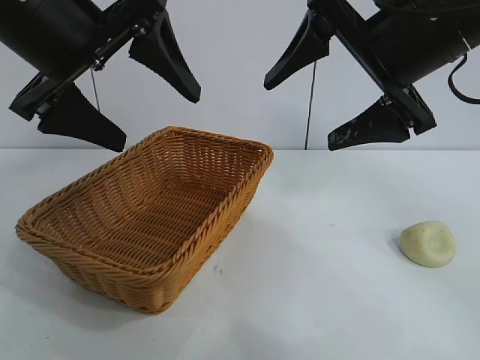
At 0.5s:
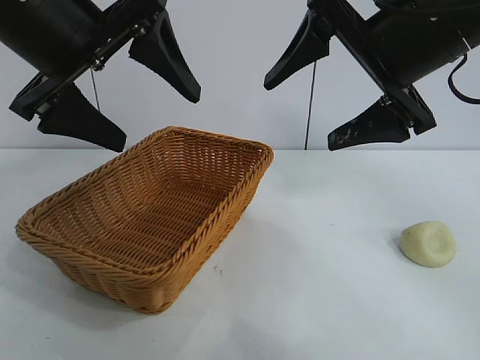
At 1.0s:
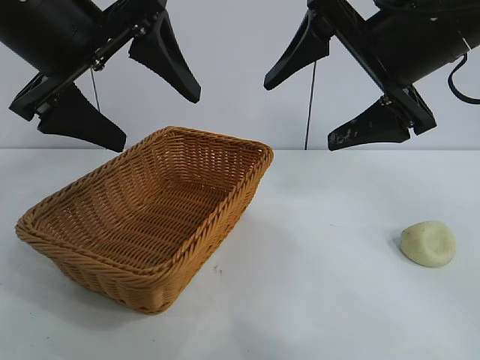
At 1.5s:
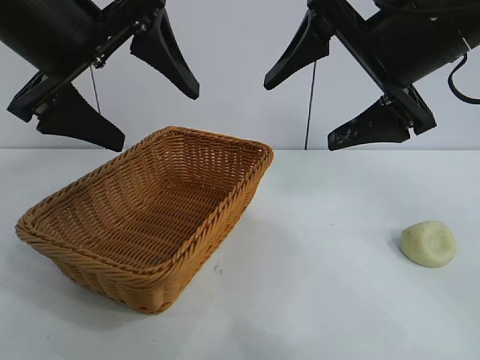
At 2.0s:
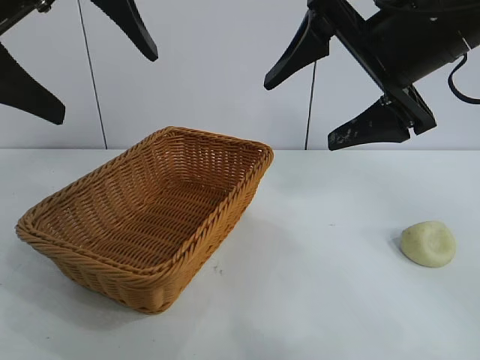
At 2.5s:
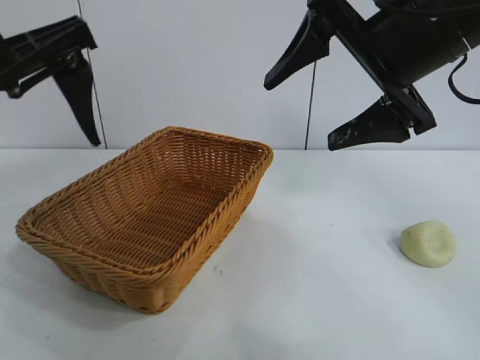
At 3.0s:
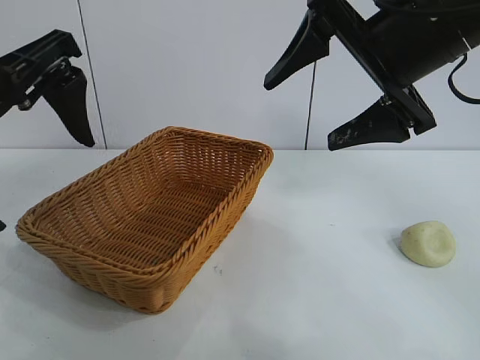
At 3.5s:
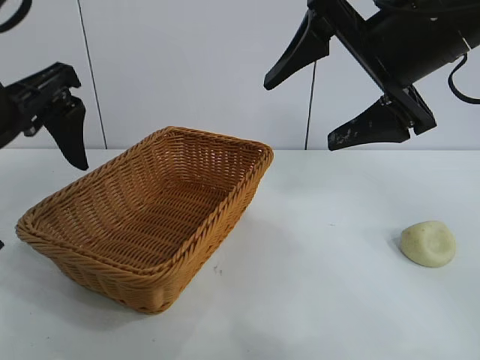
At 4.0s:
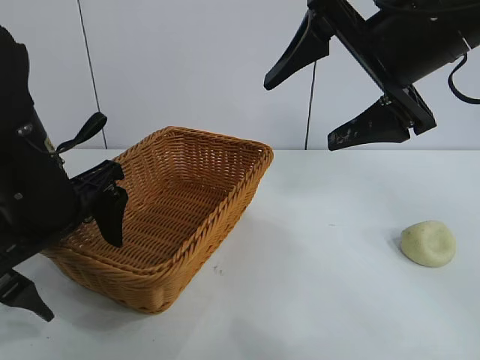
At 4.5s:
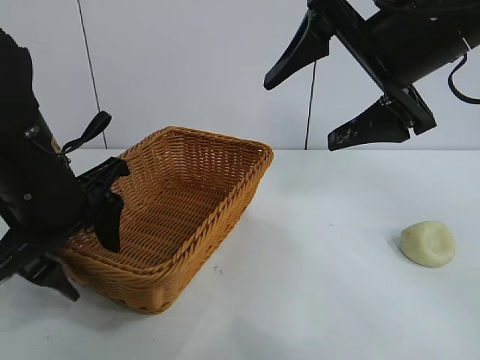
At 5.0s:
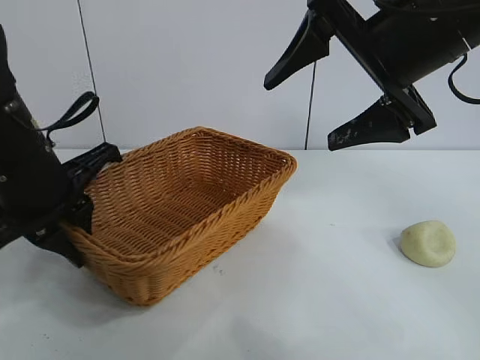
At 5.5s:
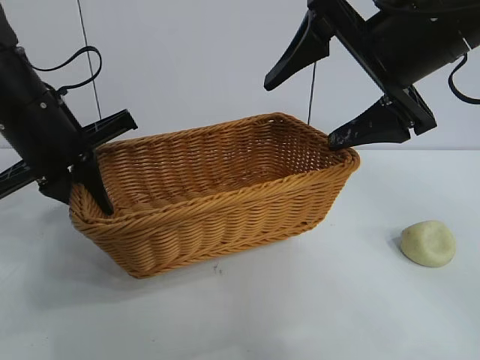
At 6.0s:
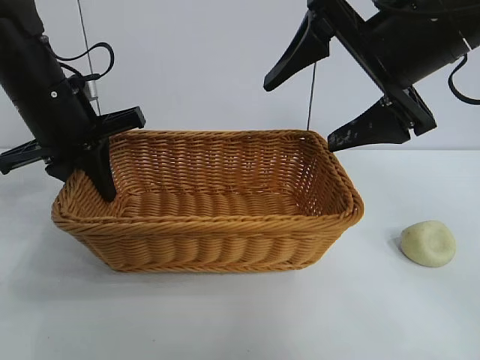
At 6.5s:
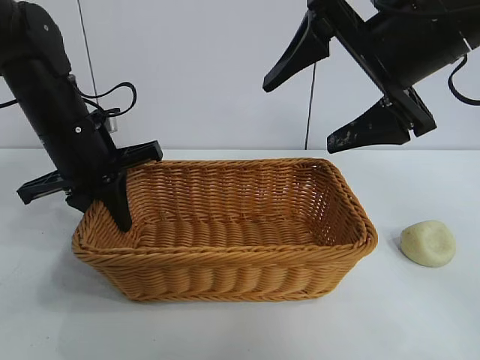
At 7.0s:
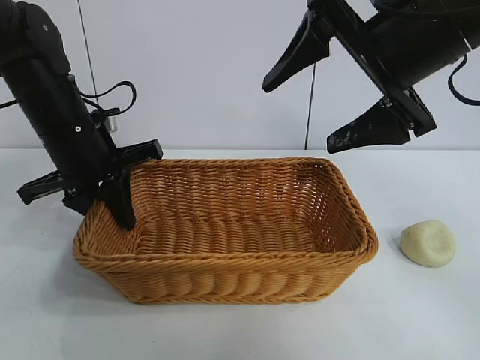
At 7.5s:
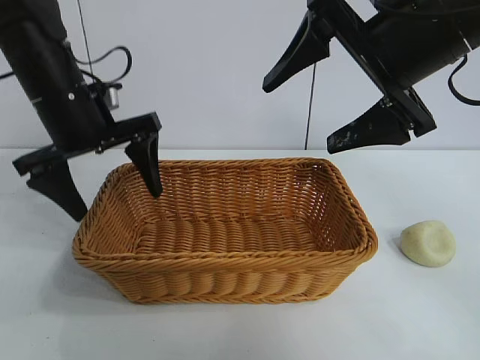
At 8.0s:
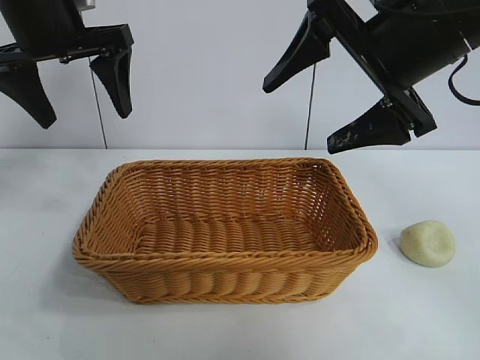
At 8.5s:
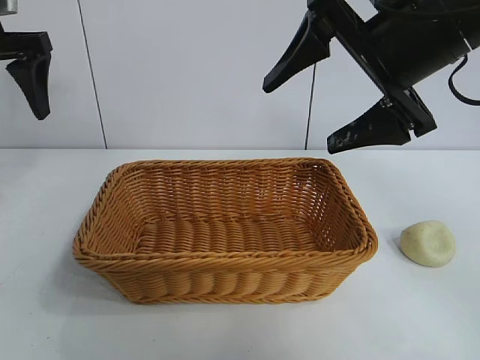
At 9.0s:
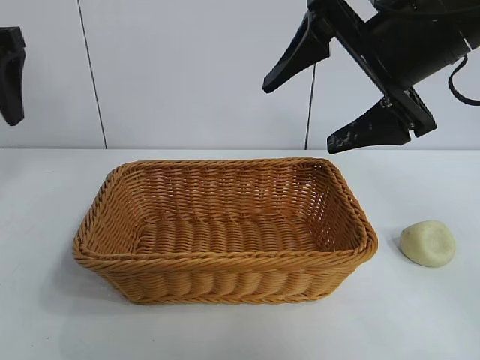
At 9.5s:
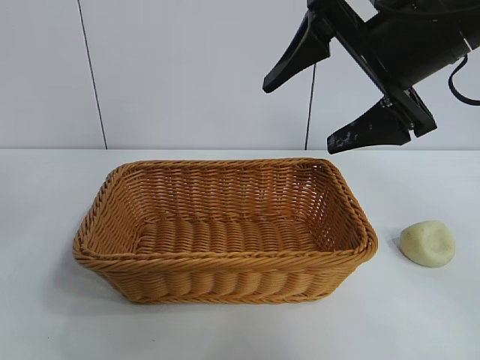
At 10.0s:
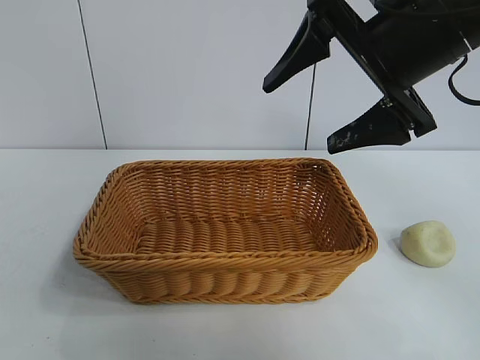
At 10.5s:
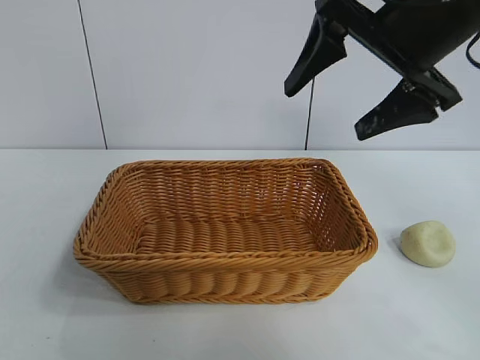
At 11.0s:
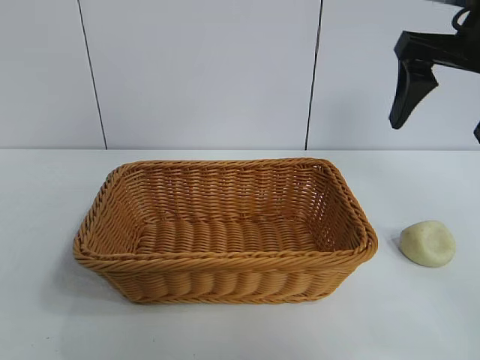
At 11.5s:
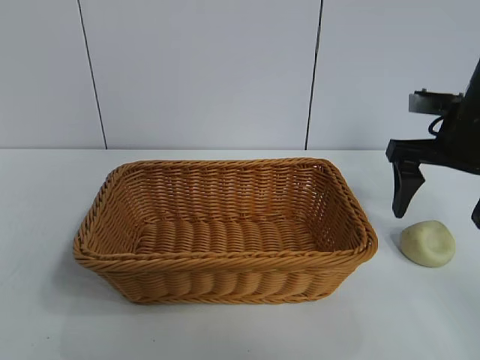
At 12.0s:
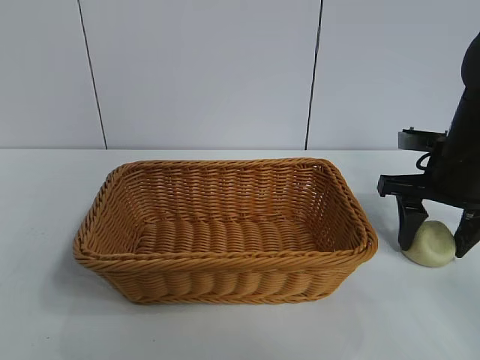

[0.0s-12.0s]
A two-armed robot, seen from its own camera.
Task of the whole recording: pick up the egg yolk pastry and put it into the basket.
Step, 1.5s to 4.5s: Grasp the basket with left gripper.
Step, 5.0s to 7.0s: Place the basket in the center of view with left gripper.

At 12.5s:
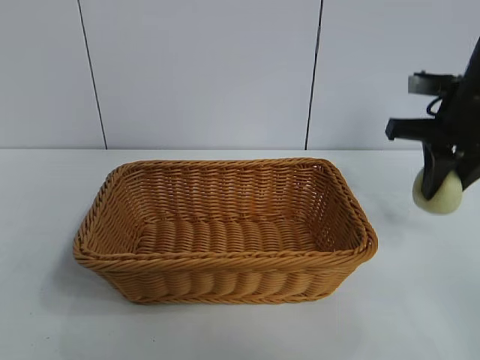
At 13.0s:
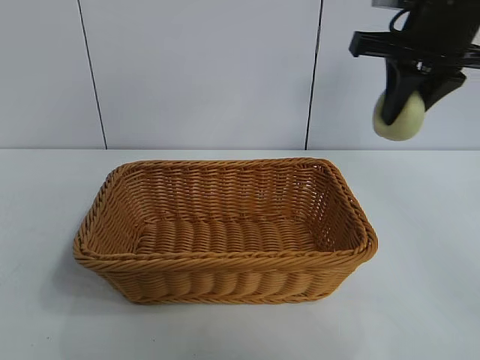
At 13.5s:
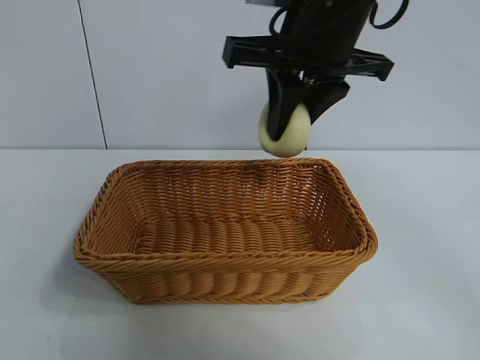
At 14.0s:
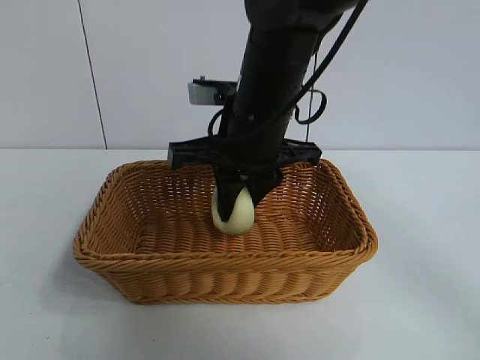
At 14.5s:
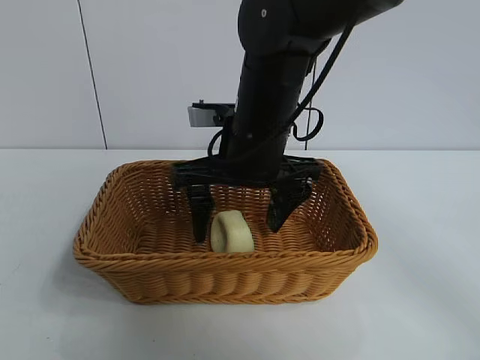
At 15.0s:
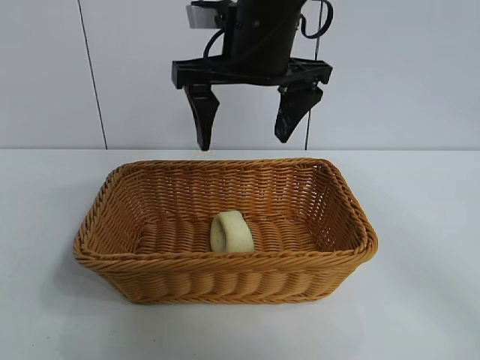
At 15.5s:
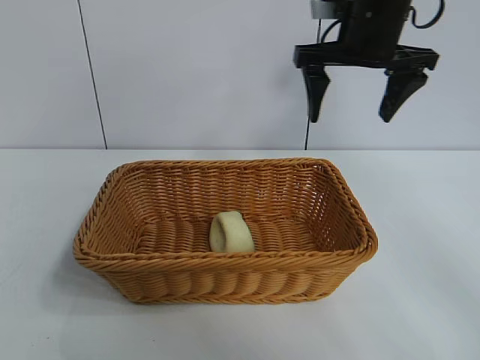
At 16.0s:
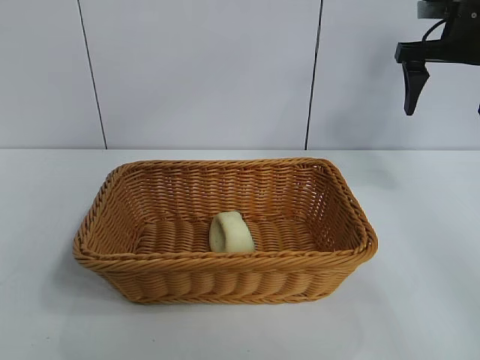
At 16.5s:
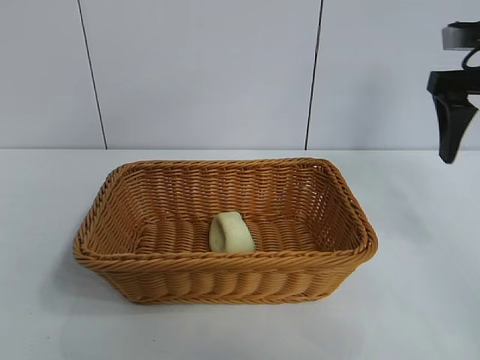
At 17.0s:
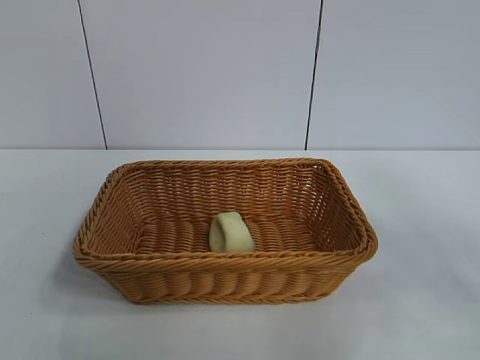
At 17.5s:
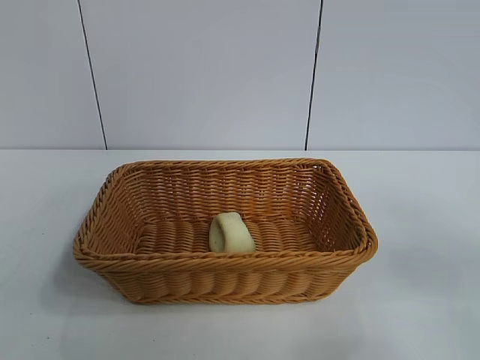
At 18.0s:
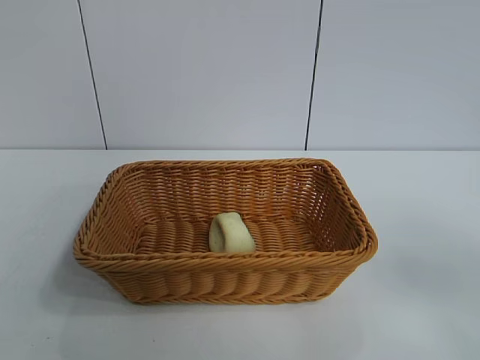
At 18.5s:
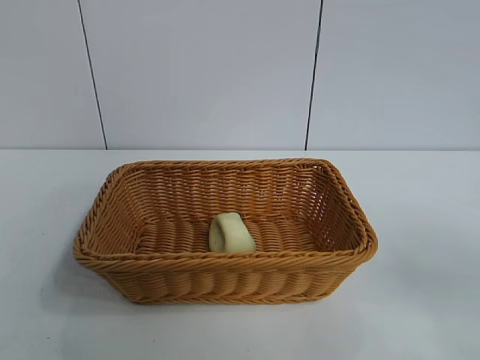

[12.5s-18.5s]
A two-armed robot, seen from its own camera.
Task of the whole recording: pick up the egg yolk pastry and put it into the basket.
Step, 12.5s to 14.0s: Place the egg yolk pastry in the basket with right gripper.

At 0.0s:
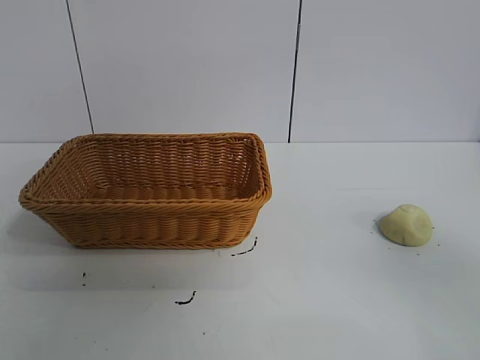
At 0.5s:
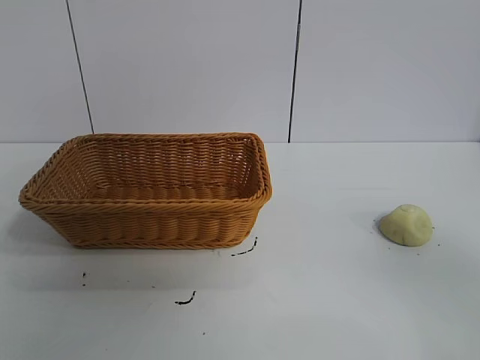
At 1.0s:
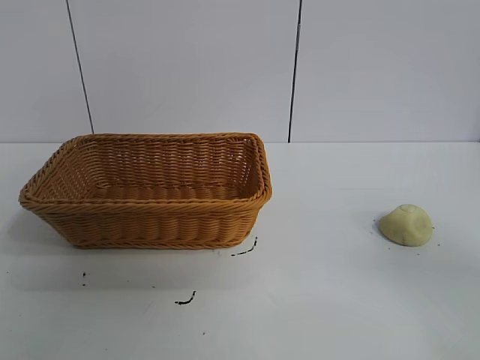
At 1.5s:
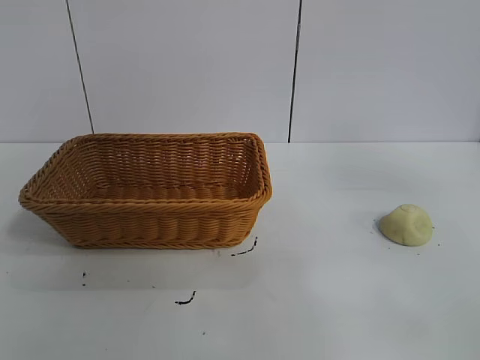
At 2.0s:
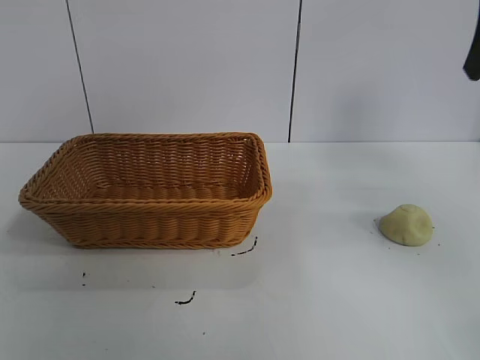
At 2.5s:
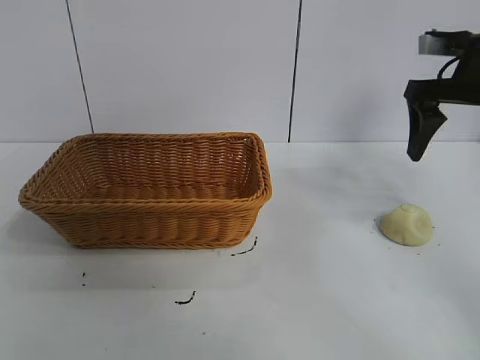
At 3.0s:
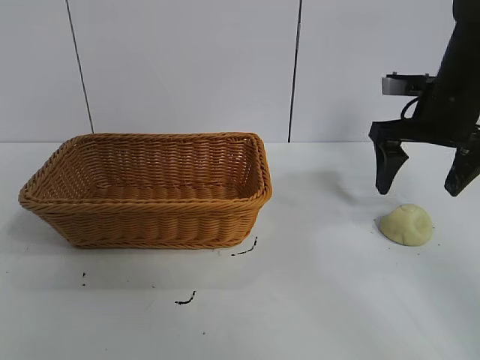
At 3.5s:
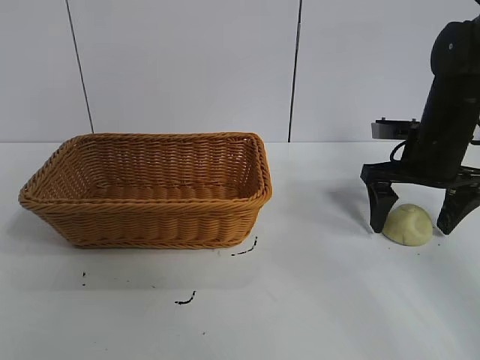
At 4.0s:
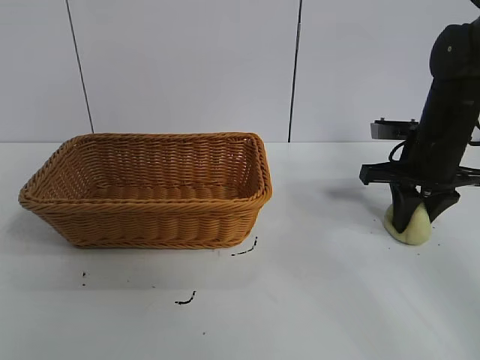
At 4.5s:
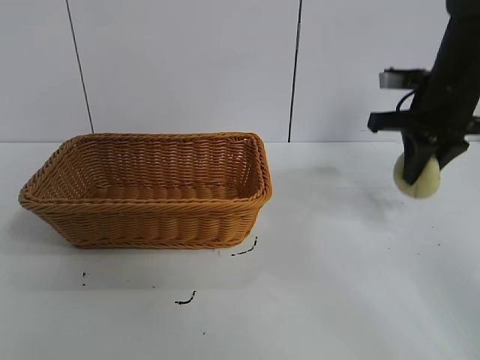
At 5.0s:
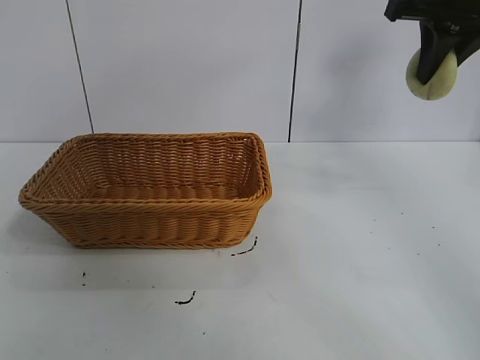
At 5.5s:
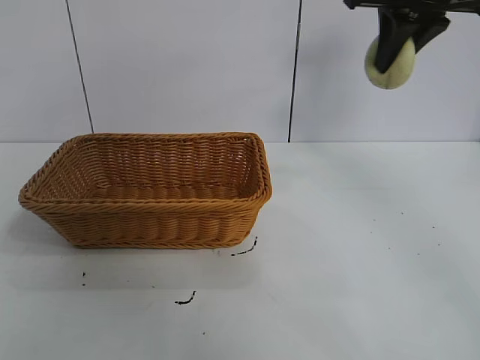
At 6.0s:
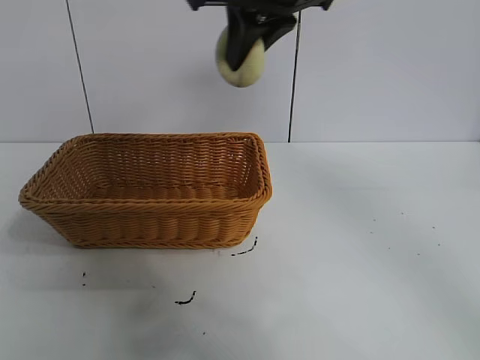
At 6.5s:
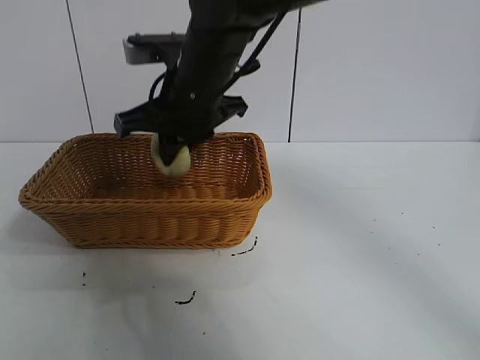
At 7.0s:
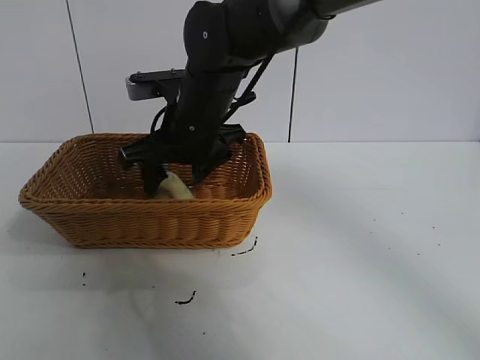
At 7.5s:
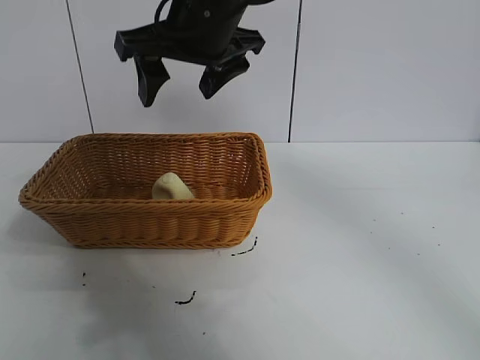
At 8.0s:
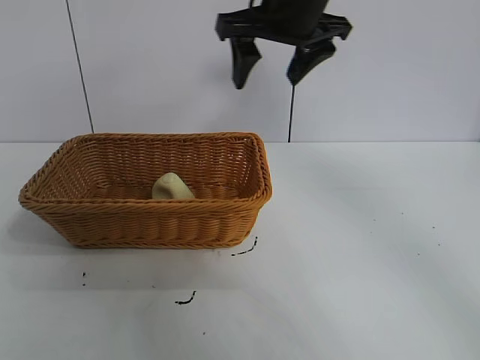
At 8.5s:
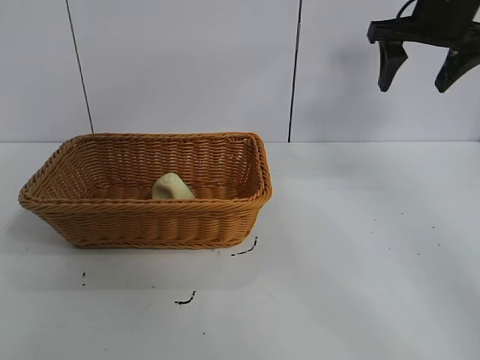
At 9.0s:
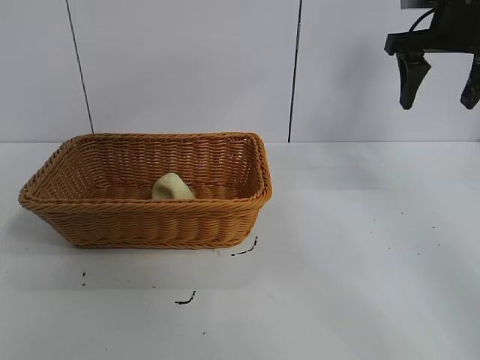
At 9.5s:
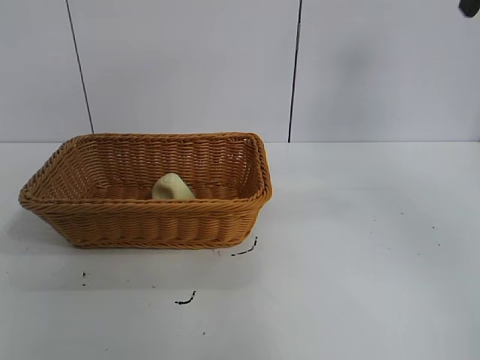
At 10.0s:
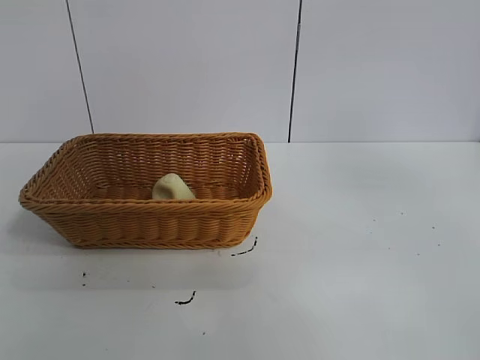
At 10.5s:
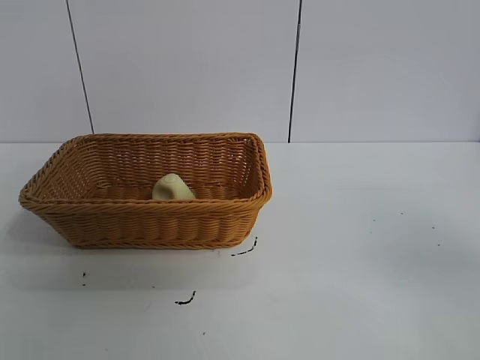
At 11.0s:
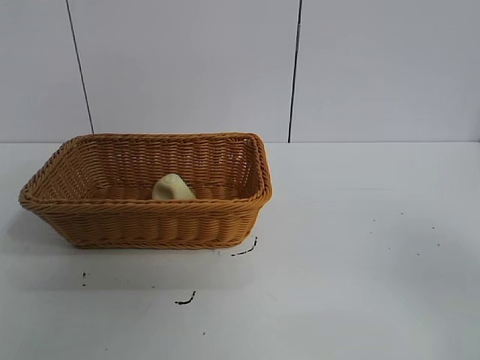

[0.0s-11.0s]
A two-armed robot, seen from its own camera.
Task of the whole recording: pick up the egg yolk pastry and put it into the basket.
Step, 1.0s to 4.0s: Grasp egg yolk pastry with right gripper.
Step, 4.5s to 7.0s: Place the egg yolk pastry in the basket with right gripper.
